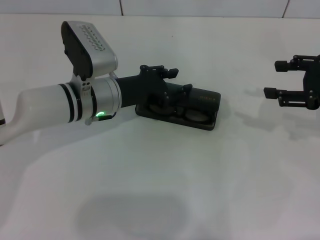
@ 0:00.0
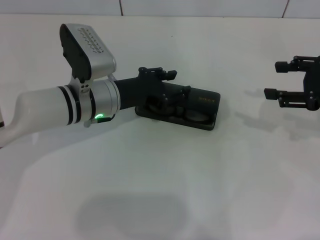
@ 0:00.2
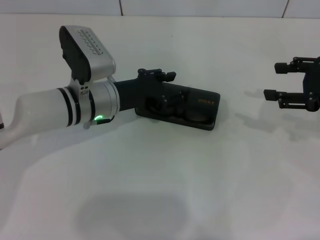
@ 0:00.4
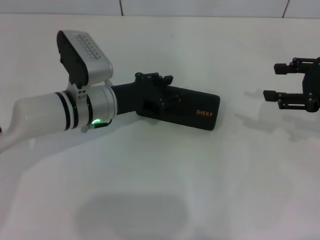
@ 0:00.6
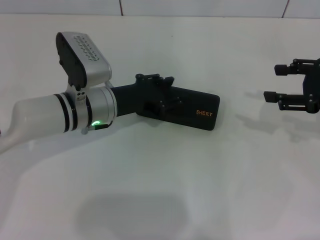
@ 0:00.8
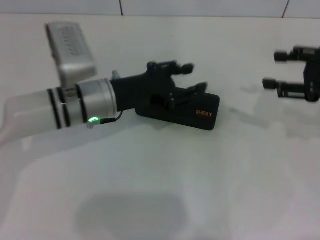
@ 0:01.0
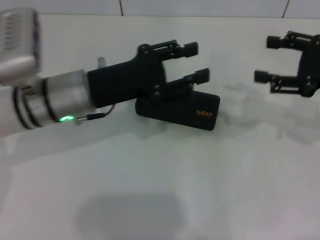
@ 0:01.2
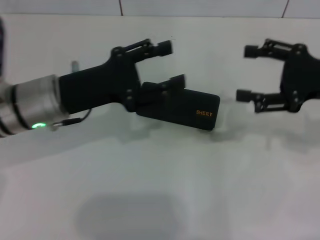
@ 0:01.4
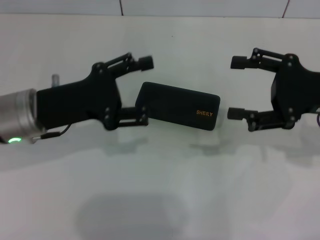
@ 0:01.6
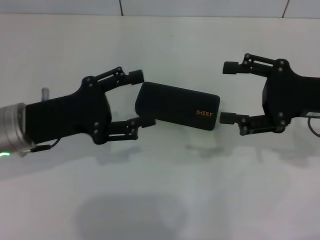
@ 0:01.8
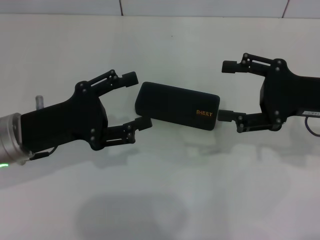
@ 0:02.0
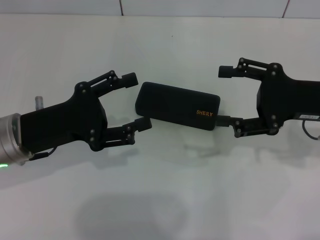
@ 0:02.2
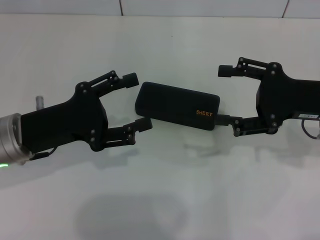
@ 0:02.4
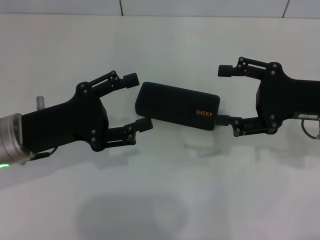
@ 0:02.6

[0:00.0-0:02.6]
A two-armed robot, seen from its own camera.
0:00.0 to 0:01.2: The left gripper is displaced upward by roughly 5 cm.
0:01.2 to 0:02.6: The left gripper heads to the left and backward, covering roughly 10 cm. The right gripper shifts by some 5 cm.

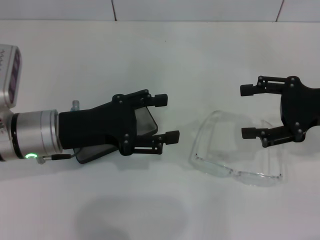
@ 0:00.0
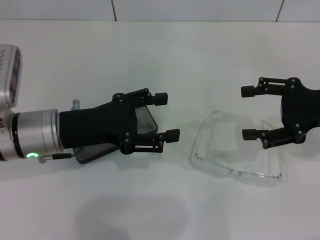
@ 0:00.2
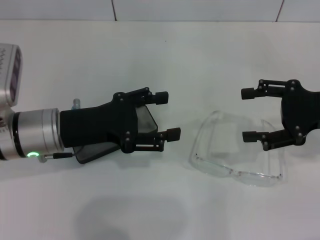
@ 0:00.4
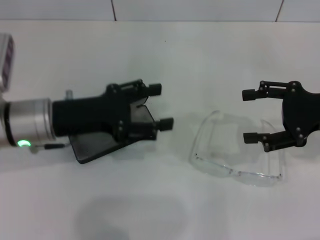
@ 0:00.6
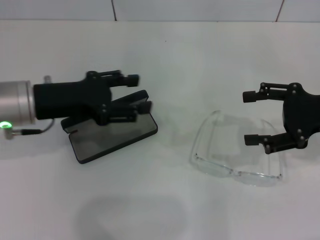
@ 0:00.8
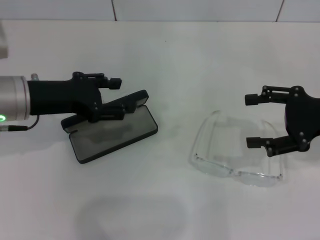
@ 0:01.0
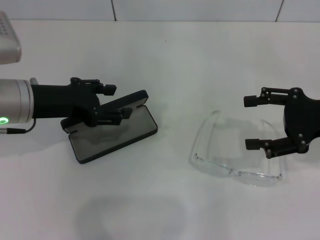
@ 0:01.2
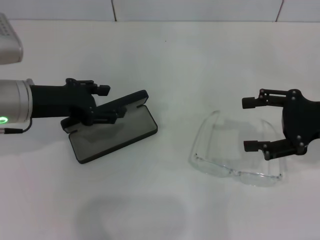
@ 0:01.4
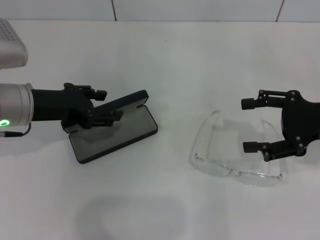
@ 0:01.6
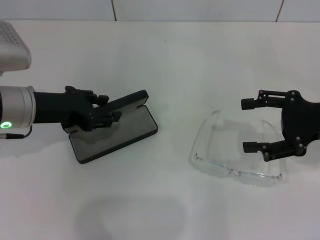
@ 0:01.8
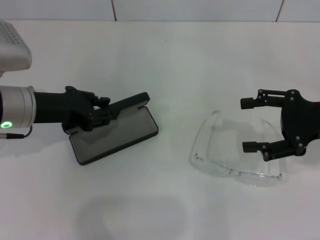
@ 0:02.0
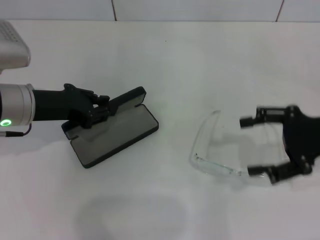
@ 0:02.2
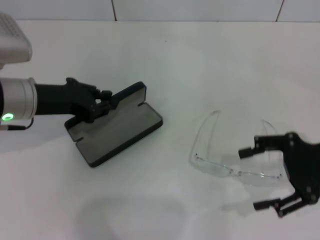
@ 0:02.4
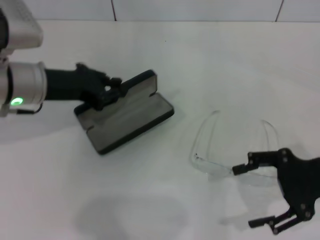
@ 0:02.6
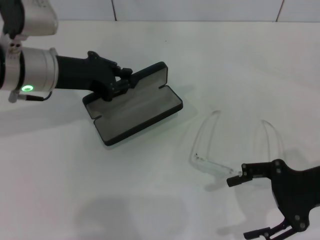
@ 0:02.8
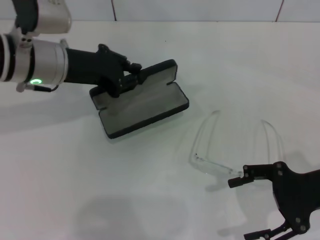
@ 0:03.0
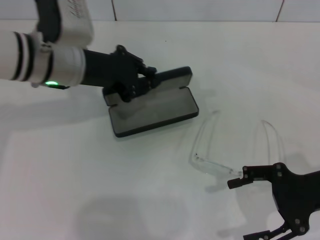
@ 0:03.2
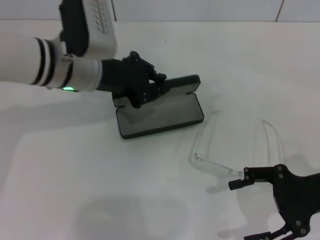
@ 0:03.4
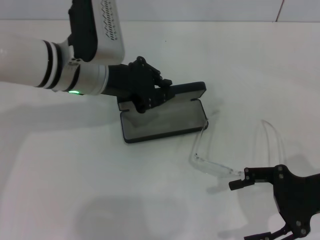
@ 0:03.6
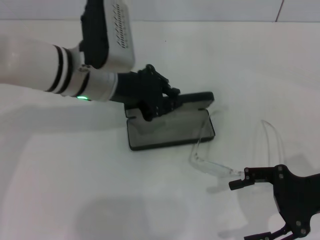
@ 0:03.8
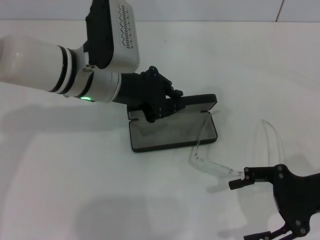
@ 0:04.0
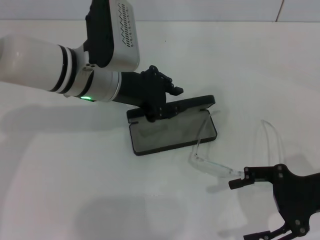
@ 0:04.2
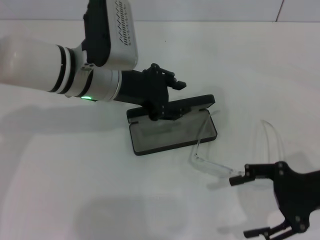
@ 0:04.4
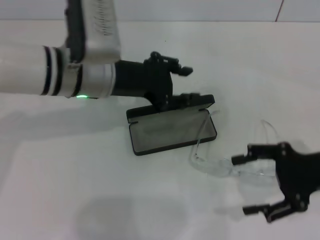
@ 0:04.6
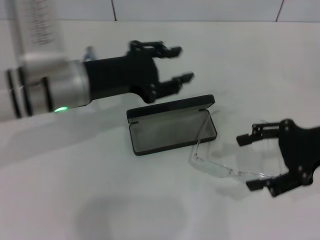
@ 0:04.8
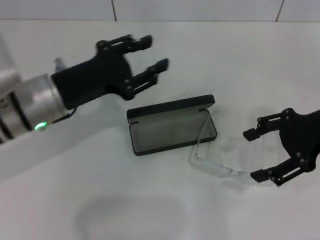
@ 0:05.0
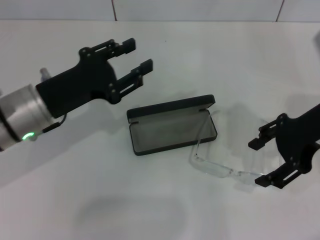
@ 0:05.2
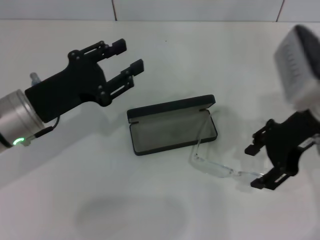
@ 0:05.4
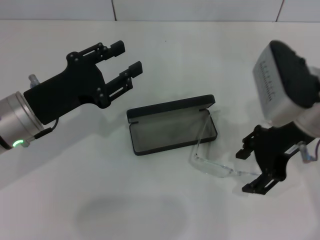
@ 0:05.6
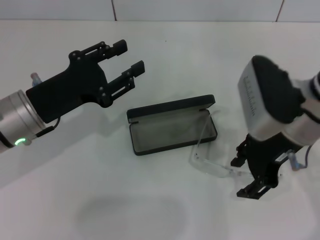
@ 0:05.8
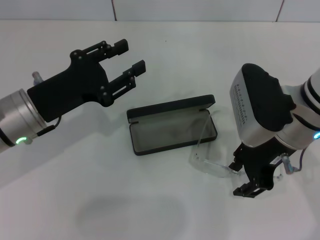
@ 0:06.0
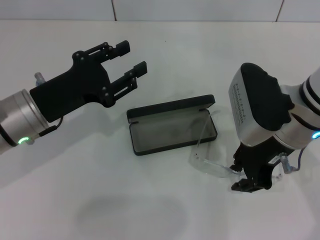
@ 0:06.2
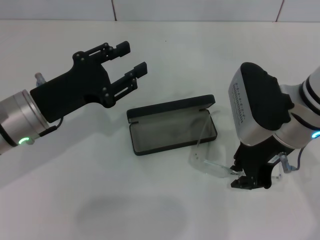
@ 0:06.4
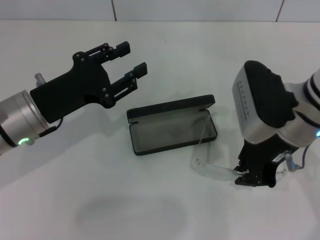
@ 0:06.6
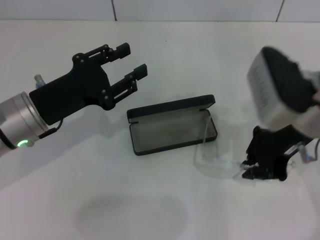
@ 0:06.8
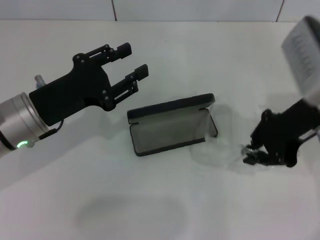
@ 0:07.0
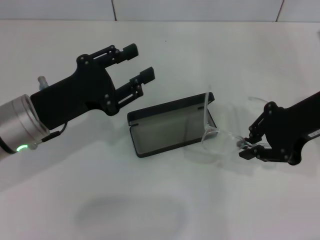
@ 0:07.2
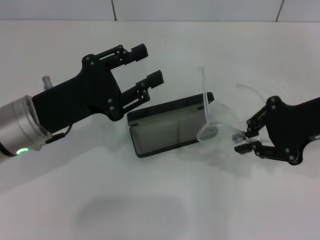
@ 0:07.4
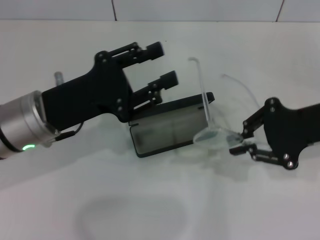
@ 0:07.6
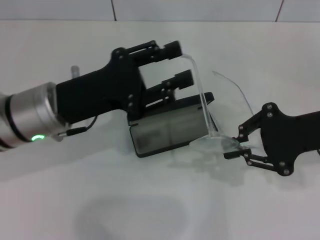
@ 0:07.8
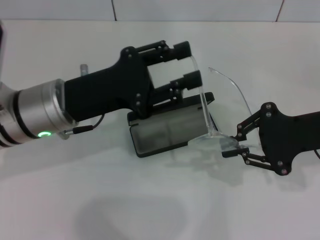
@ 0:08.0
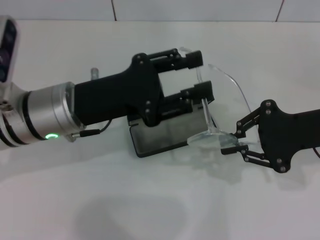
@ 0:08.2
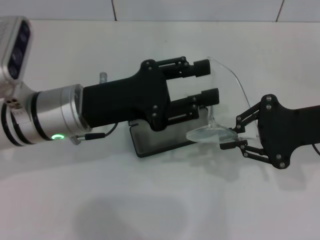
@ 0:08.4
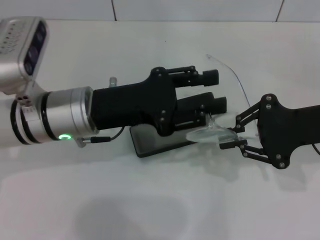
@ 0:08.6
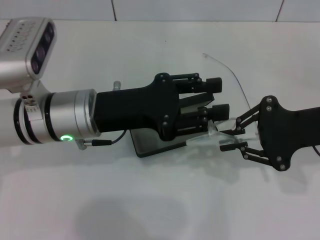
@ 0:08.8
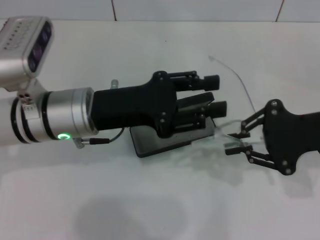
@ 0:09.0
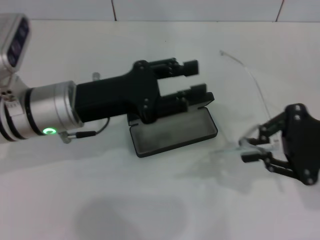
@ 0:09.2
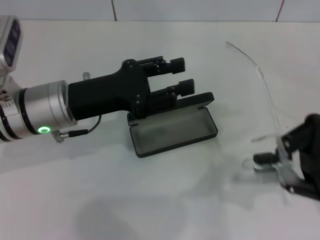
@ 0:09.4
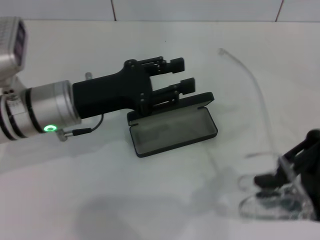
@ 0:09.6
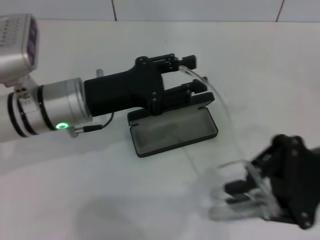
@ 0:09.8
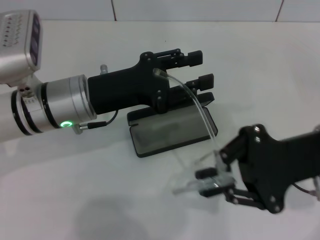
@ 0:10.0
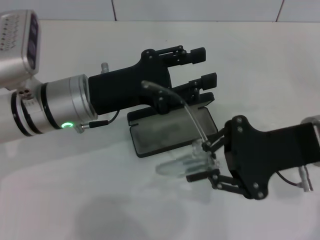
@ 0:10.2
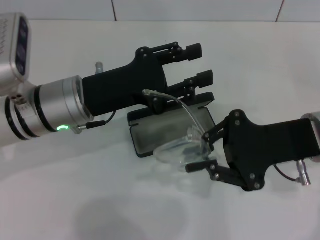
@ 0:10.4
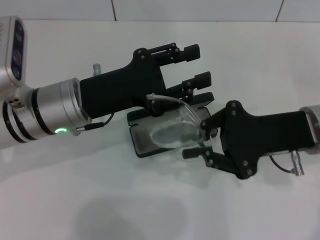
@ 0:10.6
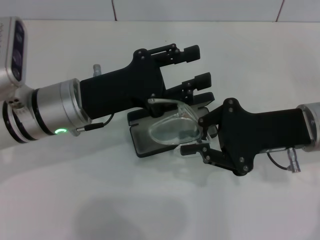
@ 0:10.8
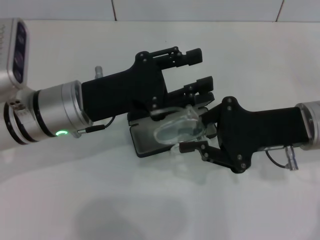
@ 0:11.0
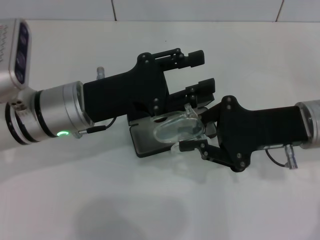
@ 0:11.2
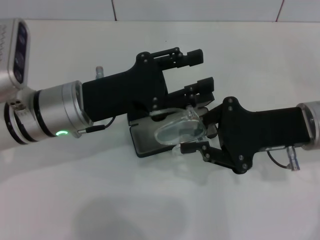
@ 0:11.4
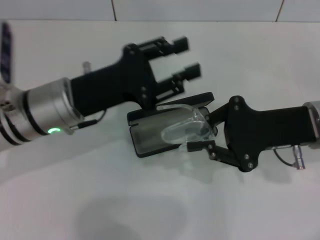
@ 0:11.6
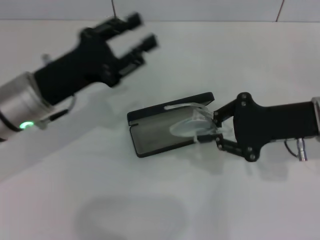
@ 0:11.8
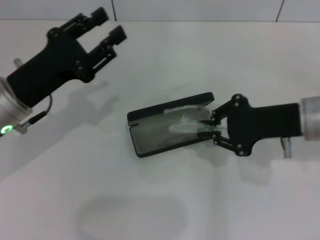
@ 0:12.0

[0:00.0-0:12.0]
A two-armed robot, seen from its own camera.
Step, 0:00.0 to 0:02.0: Grab the glasses case with your left hand.
Step, 0:02.2 to 0:04.2: Place the glasses case in the center of the table with your left hand.
Step, 0:04.4 to 0:06.4: Grab the eyeglass frame with your right hand.
Step, 0:06.6 to 0:11.4: Fold the frame with your left hand.
0:00.0 to 0:01.6: The left gripper moves approximately 5 cm.
0:01.6 to 0:03.0: The right gripper goes roughly 5 cm backward. The left gripper shifts by about 5 cm, and closes.
0:03.0 to 0:04.4: The left gripper moves to the right, approximately 5 cm.
0:04.4 to 0:06.0: The left gripper is displaced to the left and backward by about 10 cm, and opens its fingers. Meanwhile the right gripper is displaced to the left, forward and upward by approximately 15 cm, and closes.
0:06.0 to 0:07.6: The right gripper shifts some 10 cm to the right, and closes up.
0:07.6 to 0:09.0: The left gripper changes place by roughly 5 cm.
0:09.0 to 0:10.4: The right gripper changes place by roughly 5 cm.
0:10.4 to 0:12.0: The left gripper moves to the left, about 10 cm.

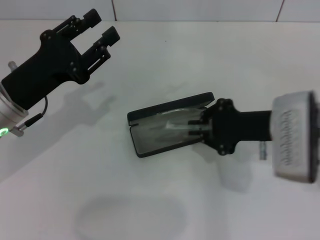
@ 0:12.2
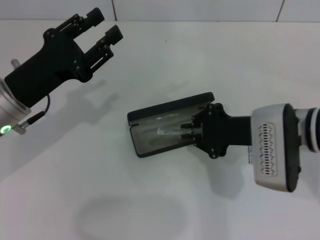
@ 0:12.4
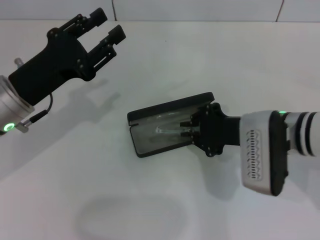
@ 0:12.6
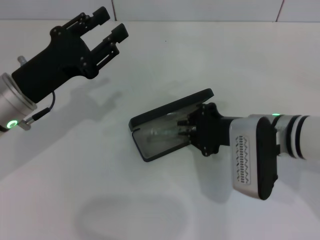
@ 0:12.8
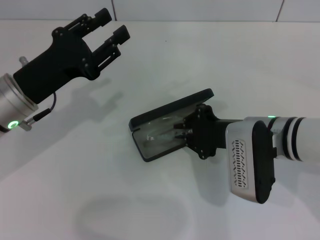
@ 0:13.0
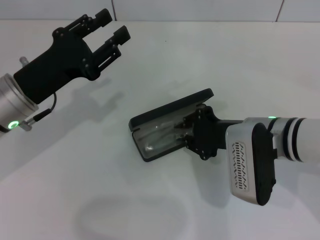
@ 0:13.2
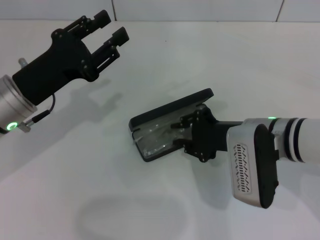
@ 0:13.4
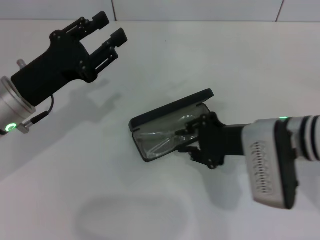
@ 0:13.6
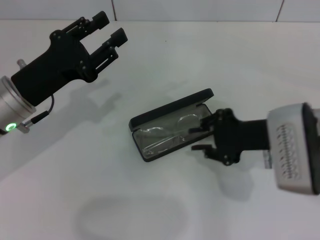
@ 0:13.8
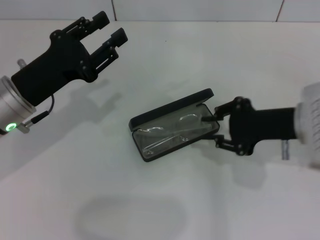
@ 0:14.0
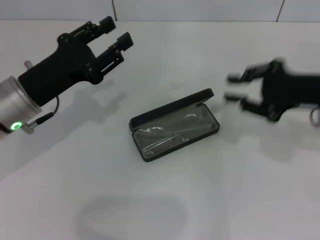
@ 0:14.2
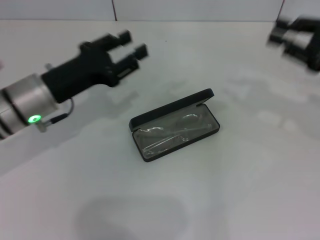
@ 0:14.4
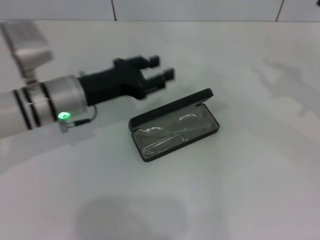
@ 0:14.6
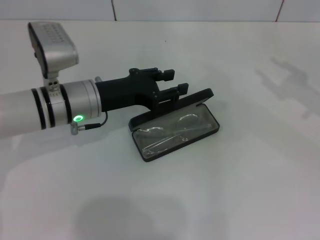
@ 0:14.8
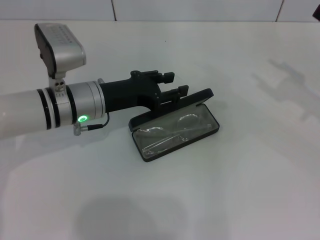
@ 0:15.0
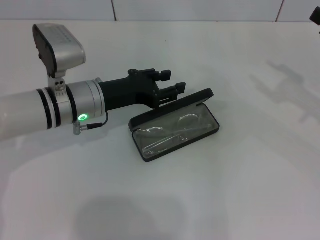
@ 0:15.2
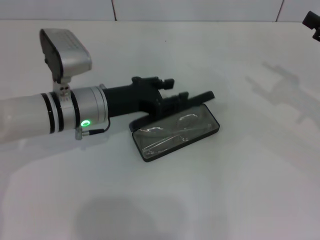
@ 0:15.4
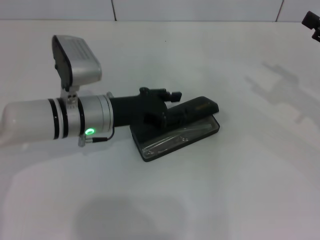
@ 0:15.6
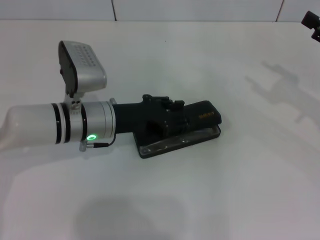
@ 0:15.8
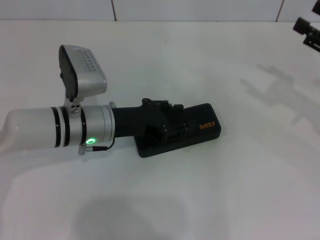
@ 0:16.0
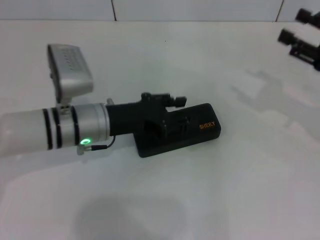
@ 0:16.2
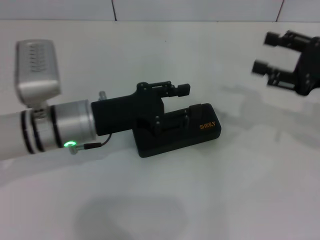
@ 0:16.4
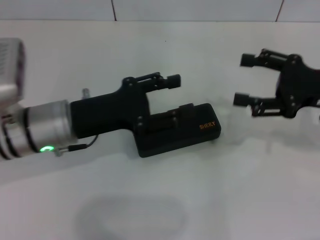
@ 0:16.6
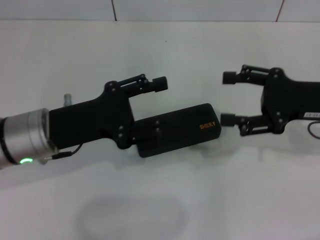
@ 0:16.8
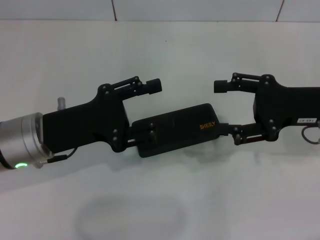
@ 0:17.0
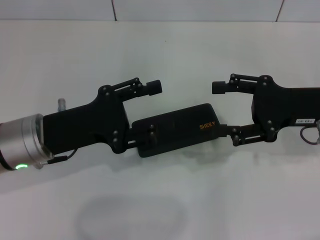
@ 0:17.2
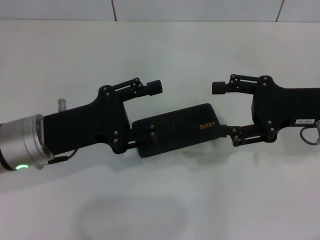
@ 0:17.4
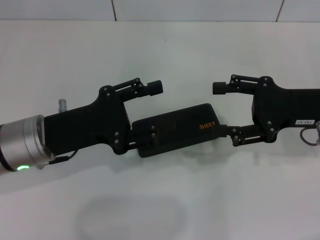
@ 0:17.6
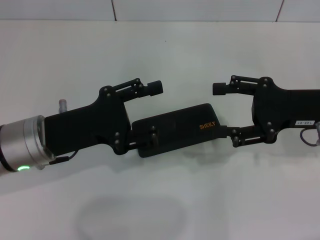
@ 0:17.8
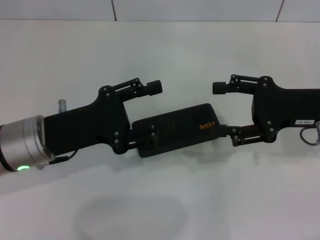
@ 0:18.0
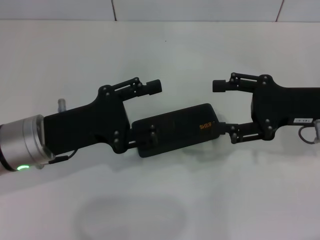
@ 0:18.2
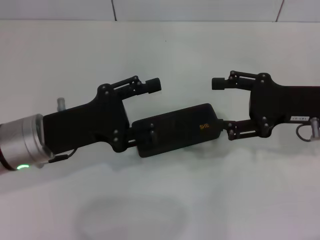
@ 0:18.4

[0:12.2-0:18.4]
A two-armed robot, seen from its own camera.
Step, 0:12.2 to 0:13.8: Put the glasses into the case with your right hand.
Step, 0:14.0 to 0:16.2: Close the glasses case with your left hand.
0:12.2 to 0:13.8: The grippers make only small movements.
0:13.8 to 0:15.4: The right gripper shifts roughly 15 cm to the right, and opens up; the left gripper moves to the right, some 10 cm.
0:15.4 to 0:16.8: The right gripper moves to the left, some 10 cm. Meanwhile the left gripper travels backward by some 5 cm.
0:16.8 to 0:18.4: Both grippers stay put.
